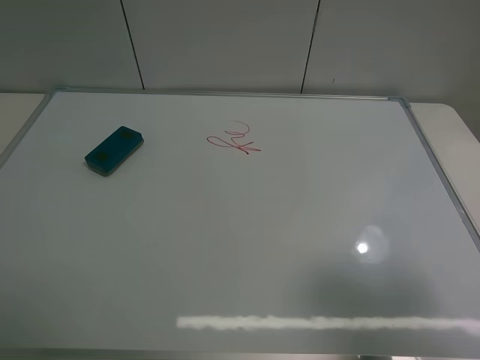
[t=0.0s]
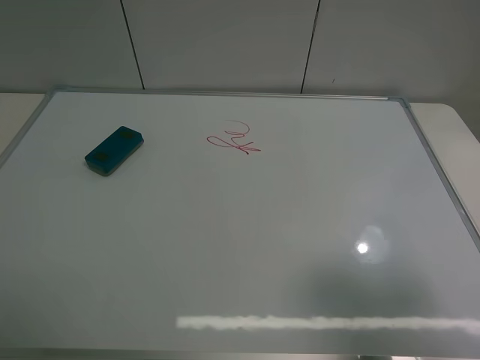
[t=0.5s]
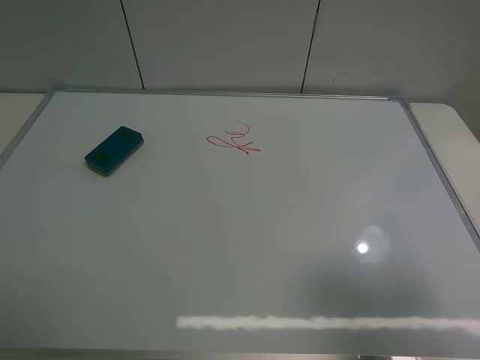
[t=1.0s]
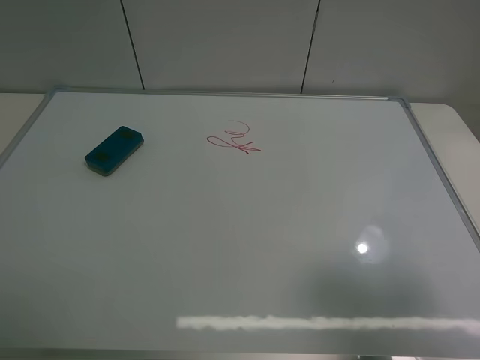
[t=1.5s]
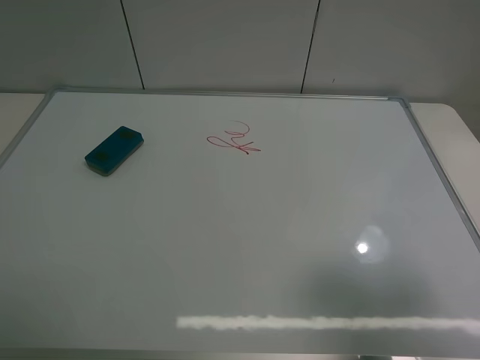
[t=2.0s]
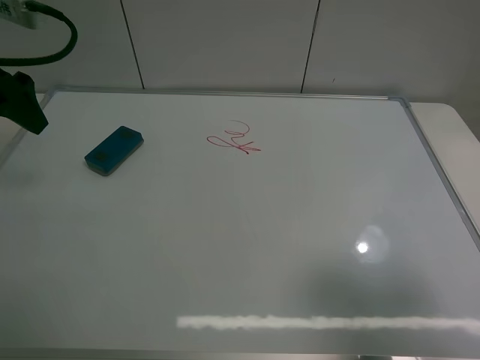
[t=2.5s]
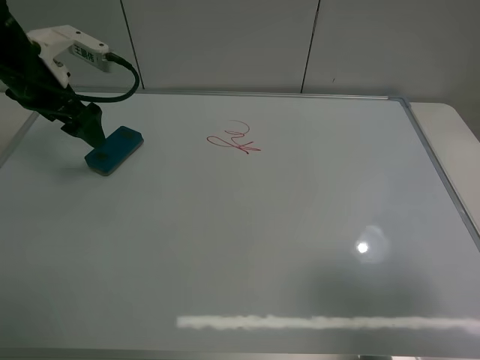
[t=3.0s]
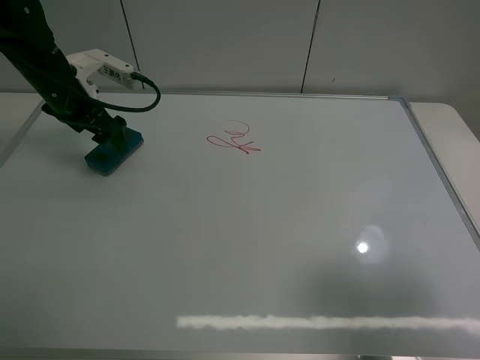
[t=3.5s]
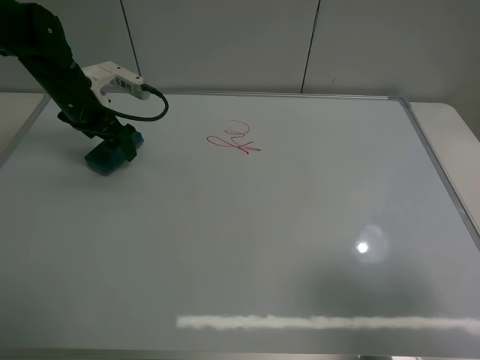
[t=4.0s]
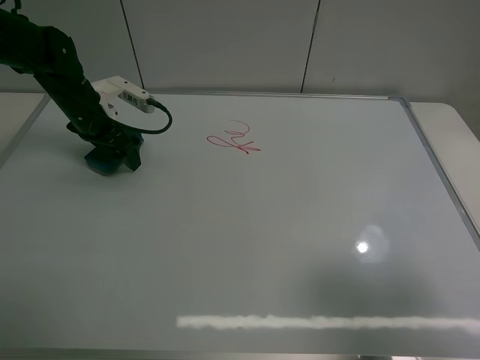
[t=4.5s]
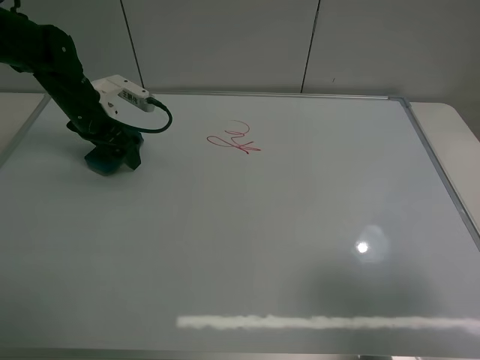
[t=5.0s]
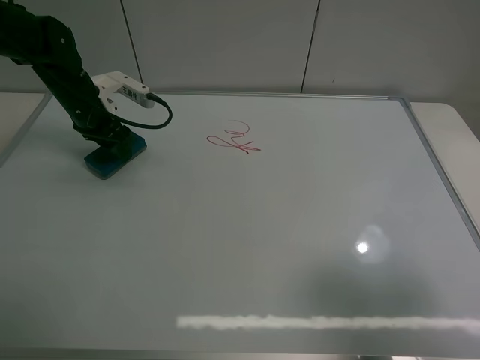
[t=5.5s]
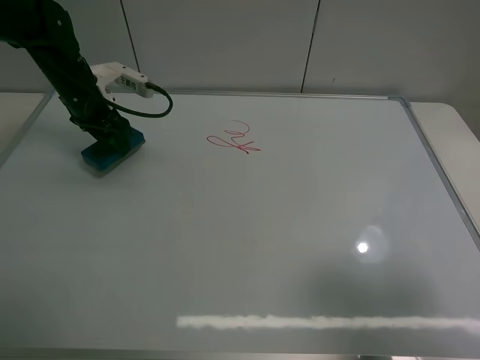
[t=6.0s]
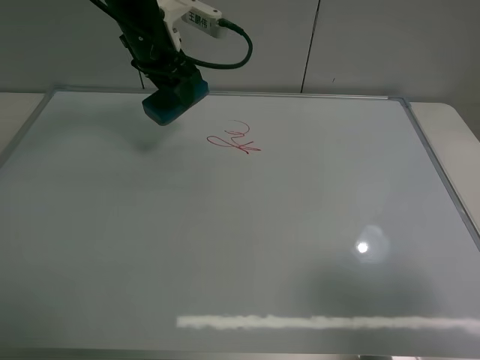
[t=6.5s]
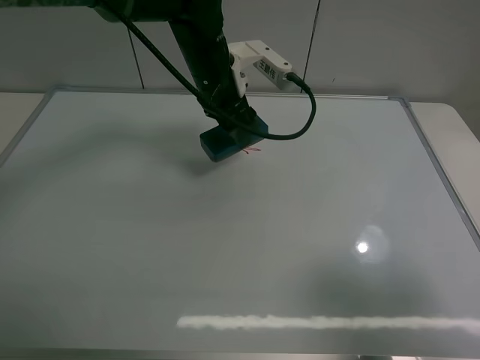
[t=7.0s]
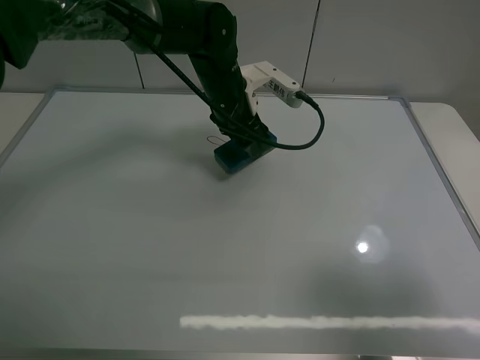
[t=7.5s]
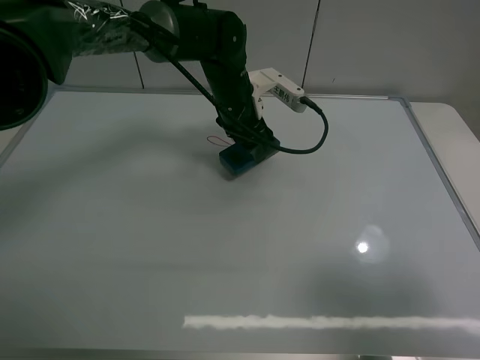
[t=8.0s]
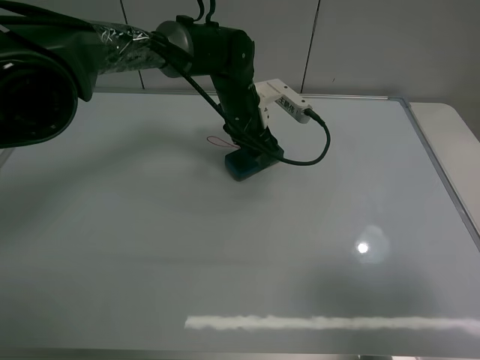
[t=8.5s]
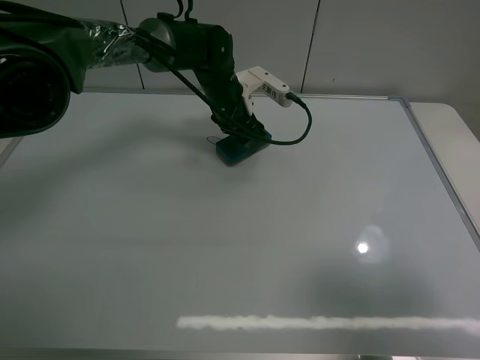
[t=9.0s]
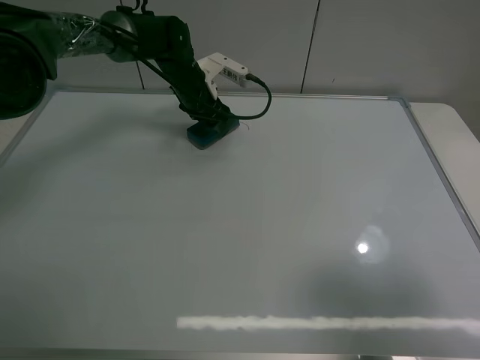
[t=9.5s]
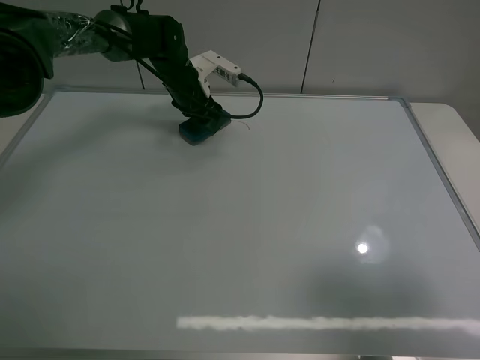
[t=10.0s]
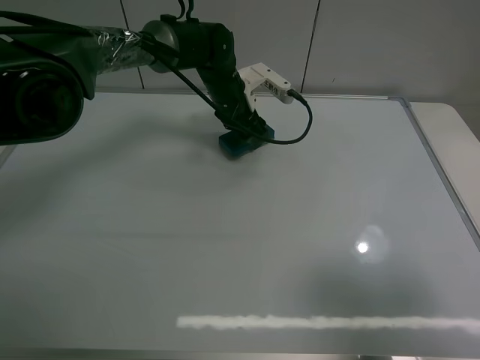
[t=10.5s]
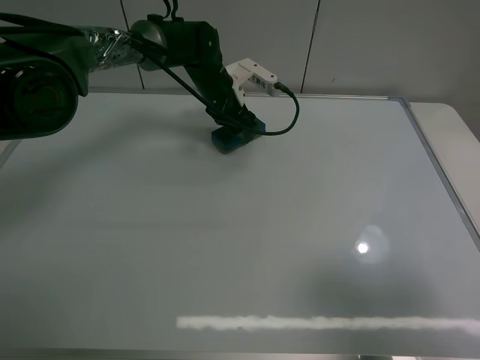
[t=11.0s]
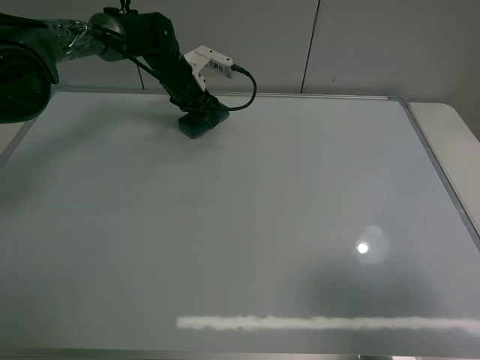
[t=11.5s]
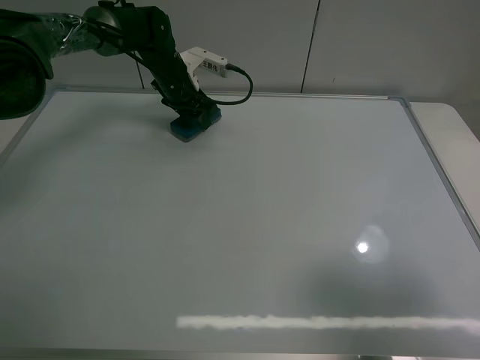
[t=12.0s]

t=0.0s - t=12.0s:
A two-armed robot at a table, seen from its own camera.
Task of the whole recording: use the left claw to pick up the whiteboard eraser, wipe the notes on the whiteboard clean, and then put them back in place.
Step, t=0.0s - t=5.0s: Grasp the eraser with the left gripper.
Step, t=5.5s - t=12.0s: Grasp the eraser and wipe the blackboard with the left gripper.
t=2.0s - t=4.0s: The left gripper shifts approximately 35 cm forward and downward.
t=4.0s - t=6.0s: The left gripper closes its fingers.
t=6.0s - t=8.0s: The left gripper moves to the right, some 25 cm.
t=8.0s - t=10.0s: The left gripper travels to the left and forward by some 15 cm.
t=10.0s - t=12.0s: The left gripper reaches roughly 10 cm to the right, then returns.

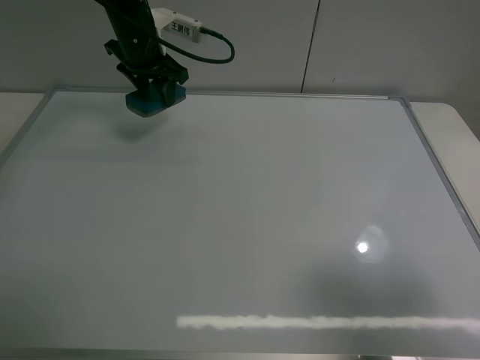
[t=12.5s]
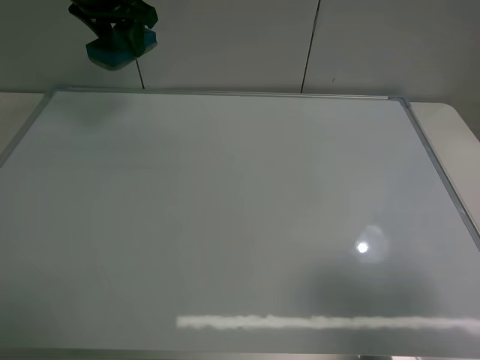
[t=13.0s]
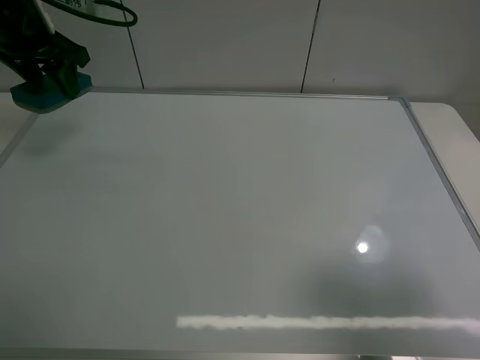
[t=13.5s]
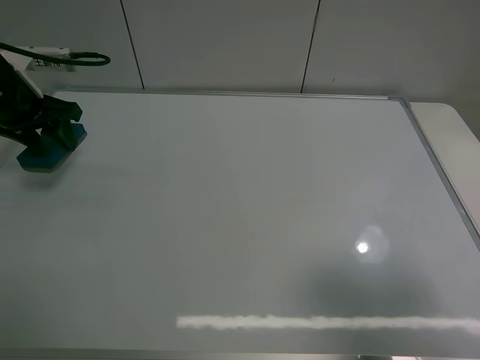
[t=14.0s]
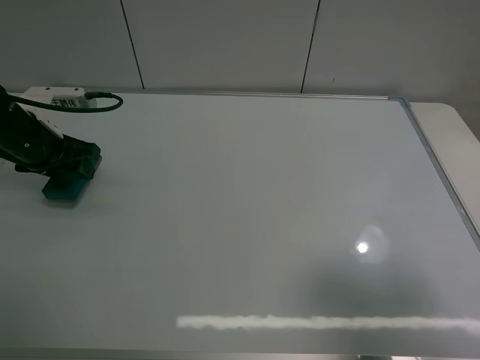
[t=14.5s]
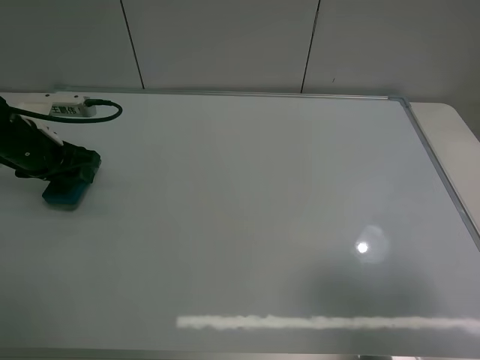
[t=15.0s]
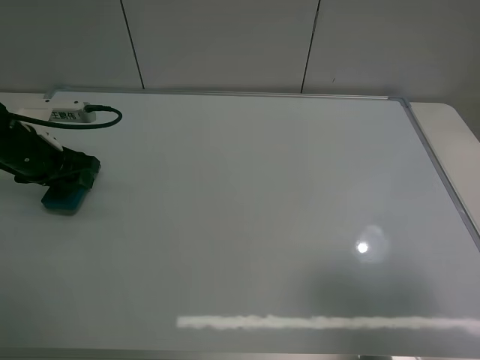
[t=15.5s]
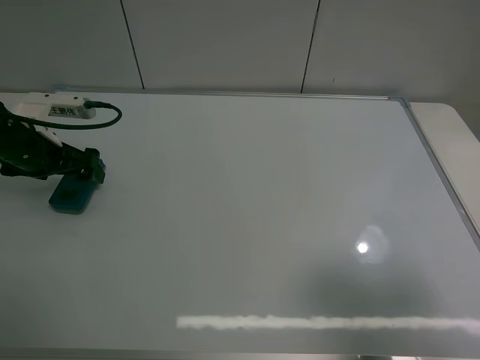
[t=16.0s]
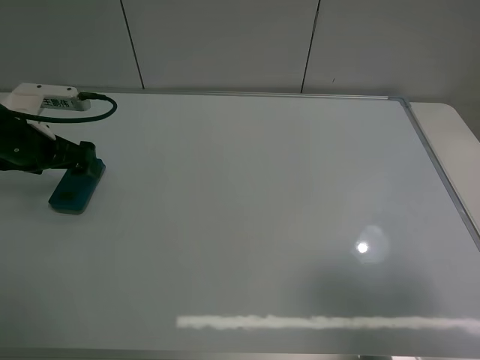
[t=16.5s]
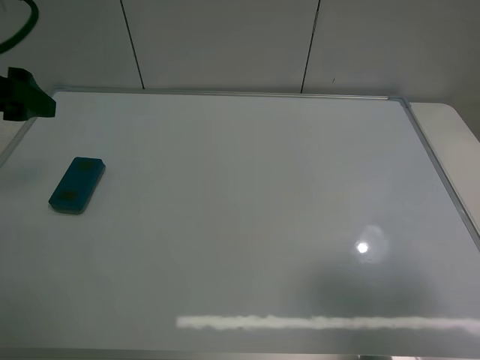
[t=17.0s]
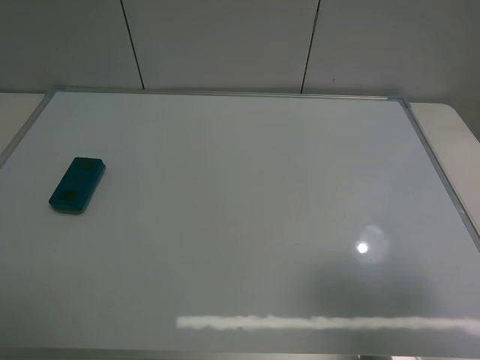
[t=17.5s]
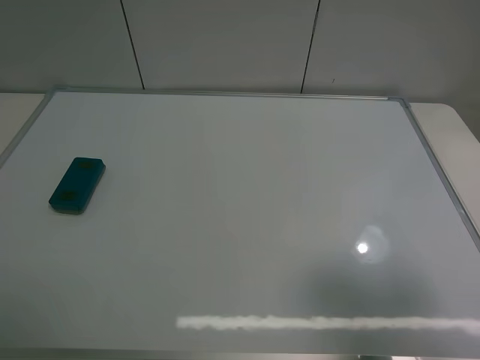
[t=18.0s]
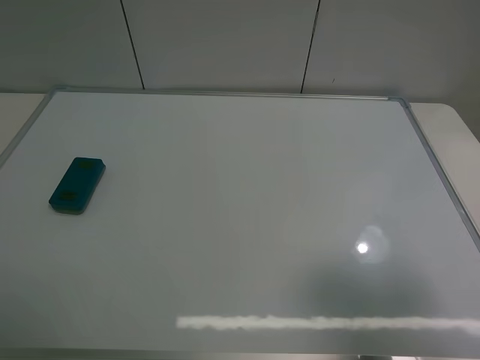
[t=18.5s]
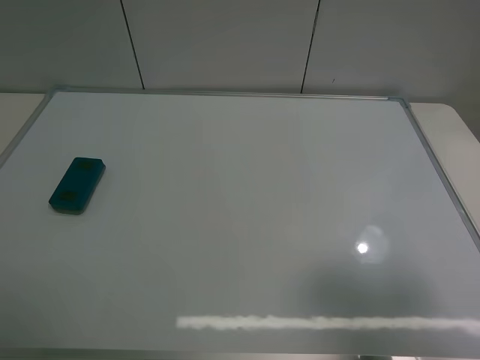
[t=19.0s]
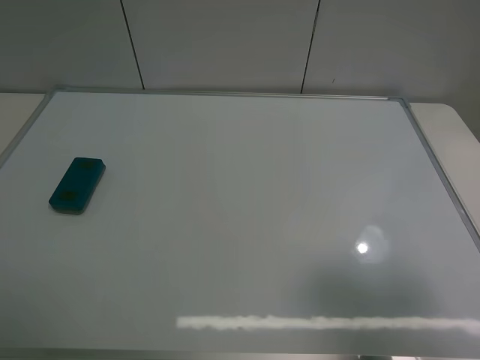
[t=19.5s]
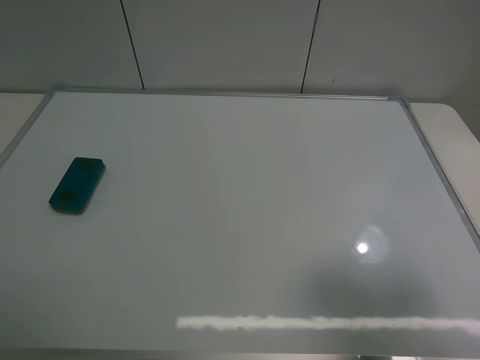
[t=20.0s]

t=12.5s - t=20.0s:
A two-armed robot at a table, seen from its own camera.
Task of the whole recording: use the left claw to pick up the whiteboard eraser, wipe the notes on the whiteboard clean, and then put them back in place.
Step, t=12.5s - t=15.5s: Place the eraser with the left gripper.
t=12.5s - t=14.5s: The left gripper heads backward, to the left and downward, covering approximately 20 cm.
t=14.5s - t=16.5s: The left gripper opens its fingers.
t=16.5s - t=18.0s: The left gripper shifts roughly 35 cm backward and upward.
